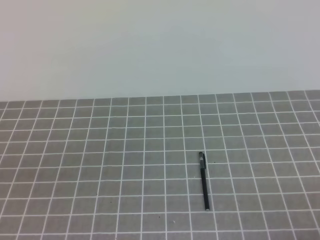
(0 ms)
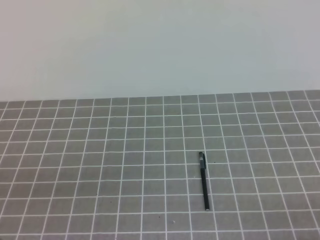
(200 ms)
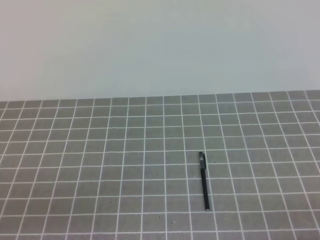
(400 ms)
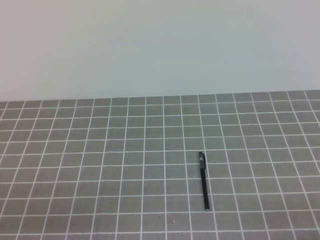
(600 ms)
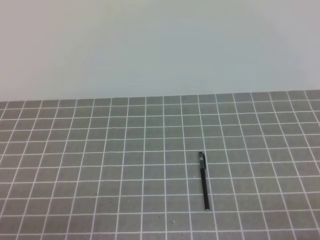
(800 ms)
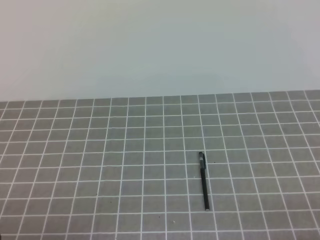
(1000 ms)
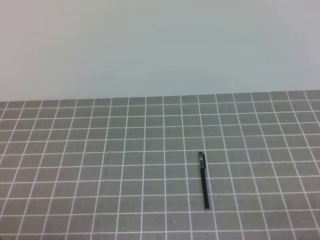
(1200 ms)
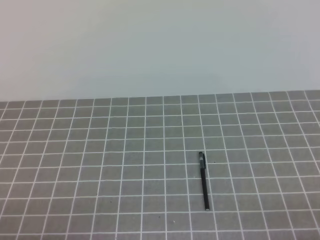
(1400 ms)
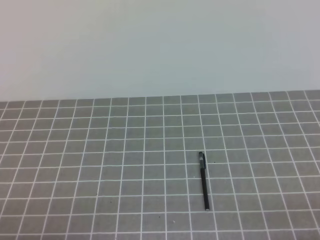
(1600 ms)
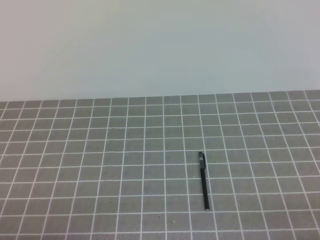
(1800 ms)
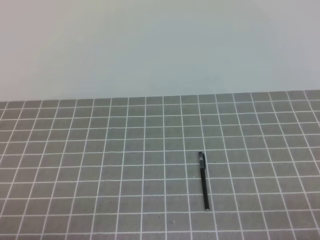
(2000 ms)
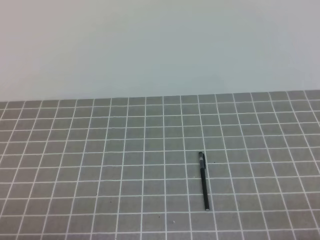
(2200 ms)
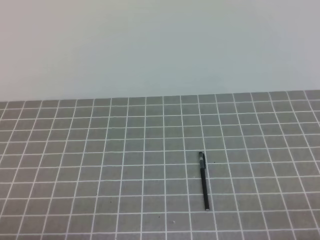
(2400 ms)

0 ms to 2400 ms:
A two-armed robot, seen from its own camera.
Task of the whole recording: on the grey tablecloth, hold the pen cap in one hand and the pen in the other, then cover the pen cap.
1200 ms to 2400 ms: The two grippers keep their place.
